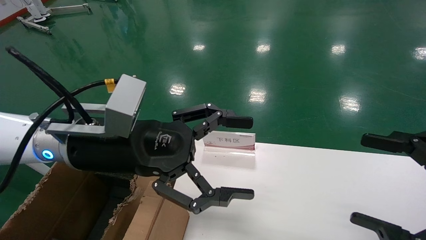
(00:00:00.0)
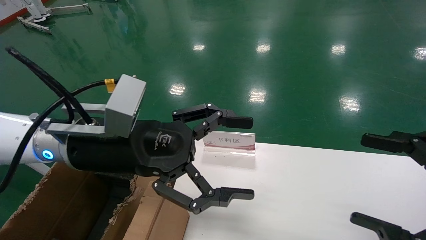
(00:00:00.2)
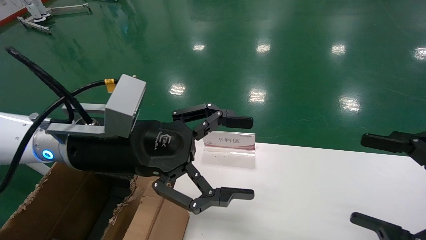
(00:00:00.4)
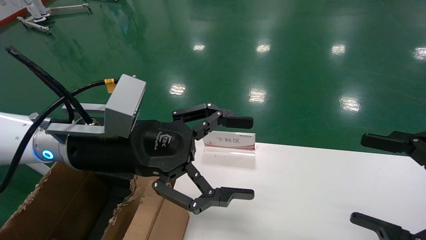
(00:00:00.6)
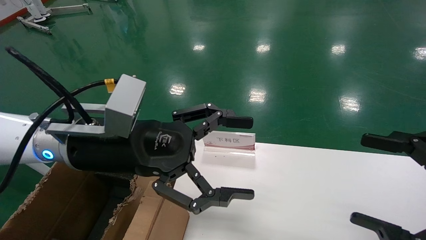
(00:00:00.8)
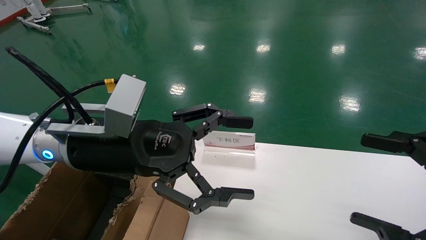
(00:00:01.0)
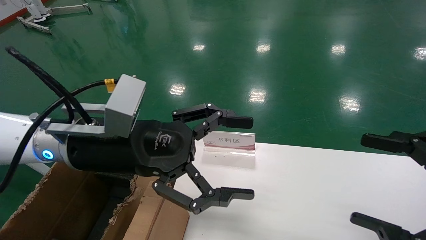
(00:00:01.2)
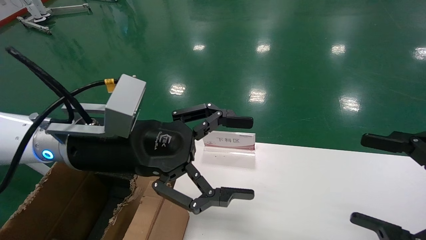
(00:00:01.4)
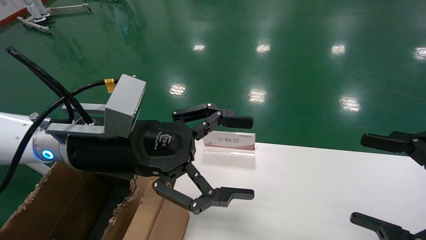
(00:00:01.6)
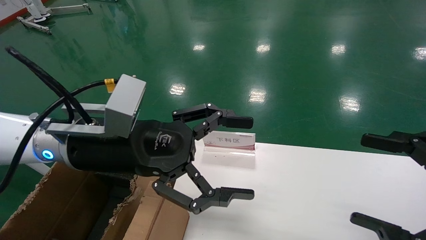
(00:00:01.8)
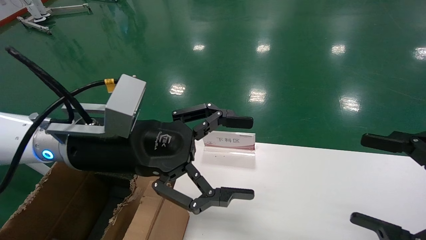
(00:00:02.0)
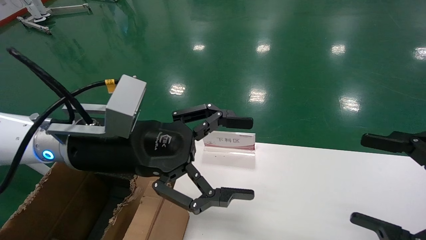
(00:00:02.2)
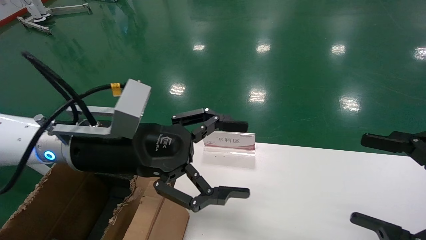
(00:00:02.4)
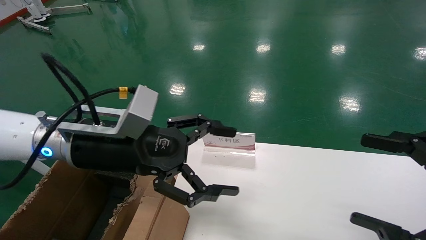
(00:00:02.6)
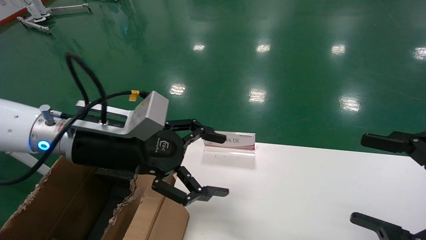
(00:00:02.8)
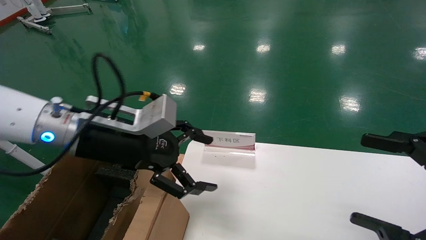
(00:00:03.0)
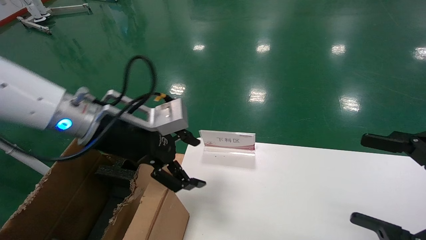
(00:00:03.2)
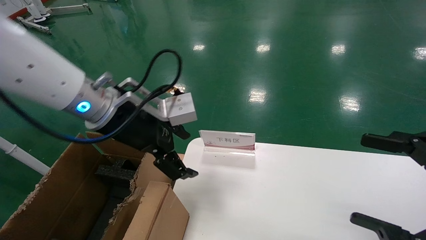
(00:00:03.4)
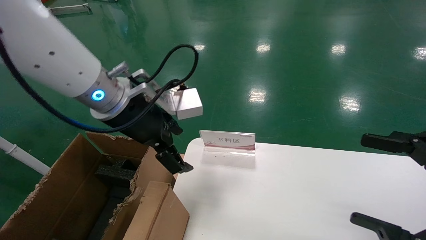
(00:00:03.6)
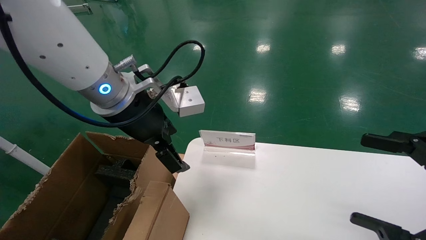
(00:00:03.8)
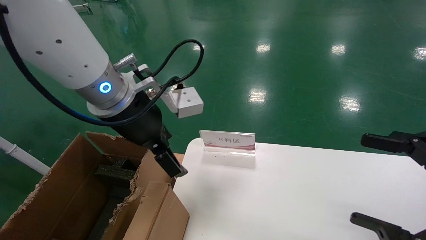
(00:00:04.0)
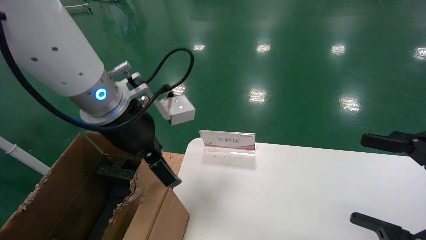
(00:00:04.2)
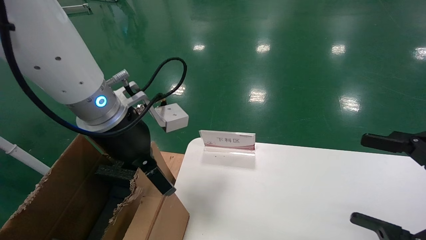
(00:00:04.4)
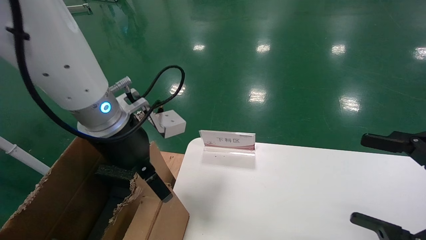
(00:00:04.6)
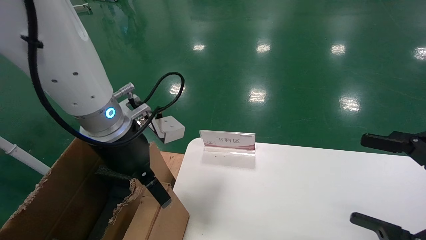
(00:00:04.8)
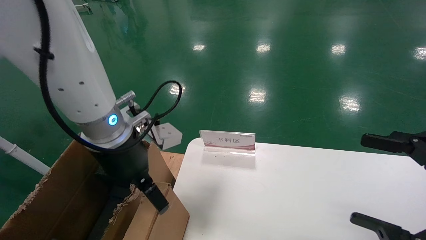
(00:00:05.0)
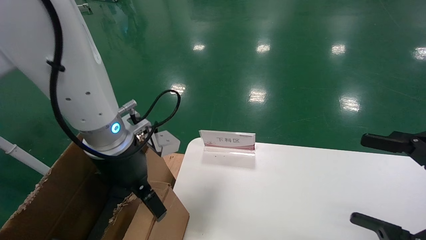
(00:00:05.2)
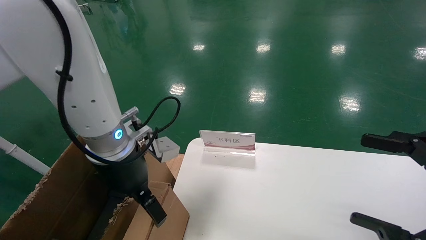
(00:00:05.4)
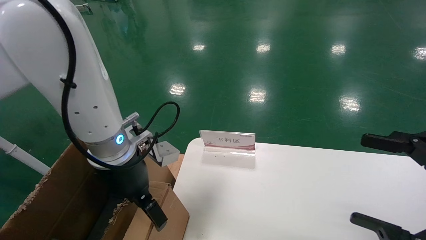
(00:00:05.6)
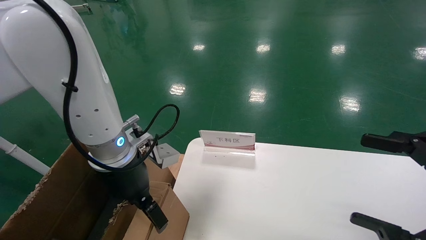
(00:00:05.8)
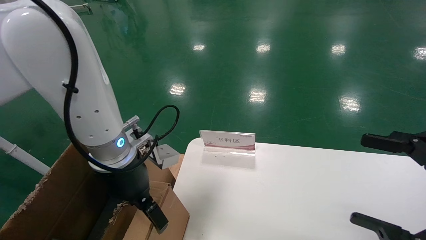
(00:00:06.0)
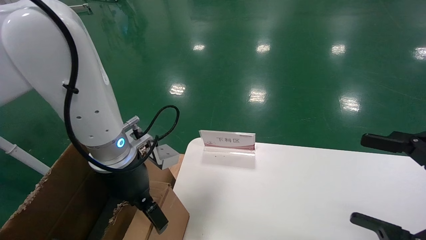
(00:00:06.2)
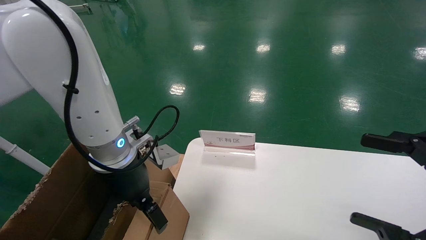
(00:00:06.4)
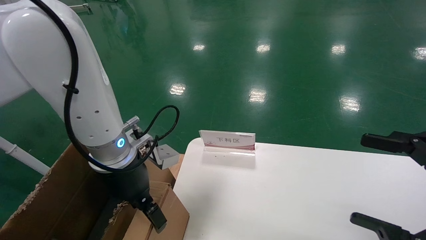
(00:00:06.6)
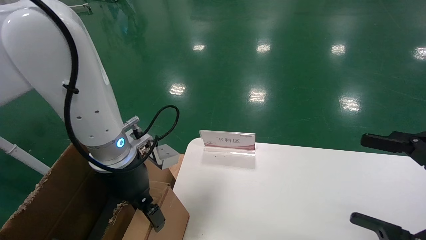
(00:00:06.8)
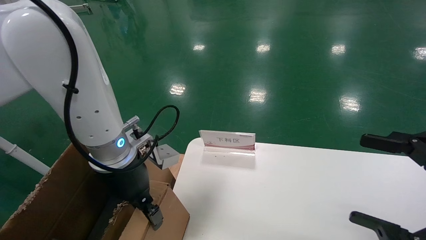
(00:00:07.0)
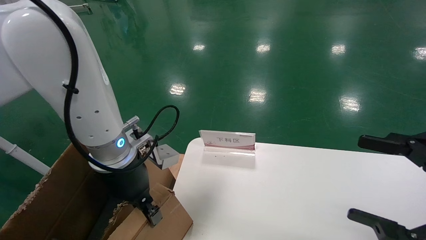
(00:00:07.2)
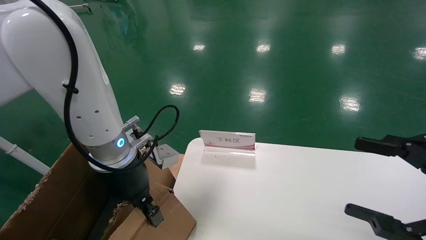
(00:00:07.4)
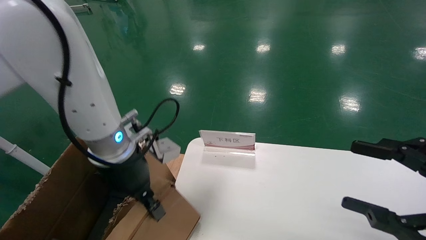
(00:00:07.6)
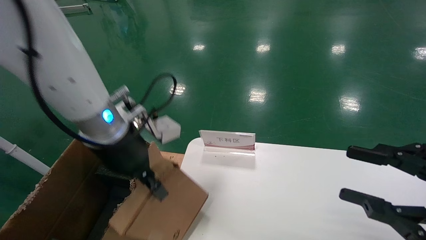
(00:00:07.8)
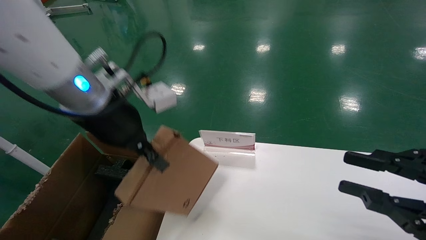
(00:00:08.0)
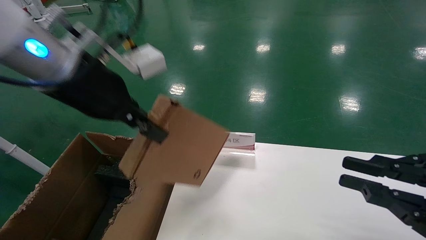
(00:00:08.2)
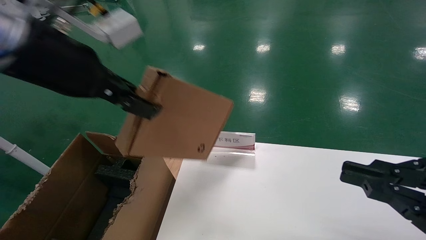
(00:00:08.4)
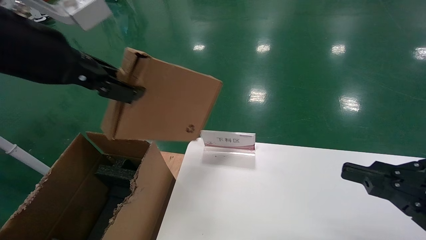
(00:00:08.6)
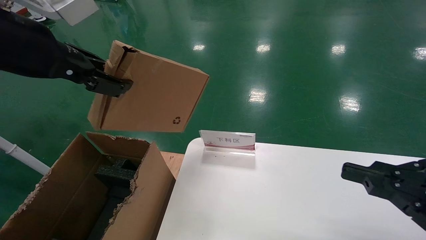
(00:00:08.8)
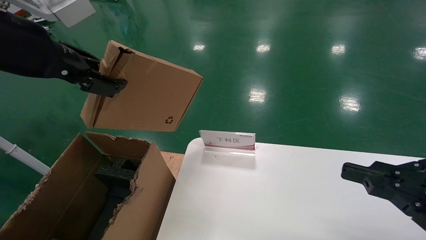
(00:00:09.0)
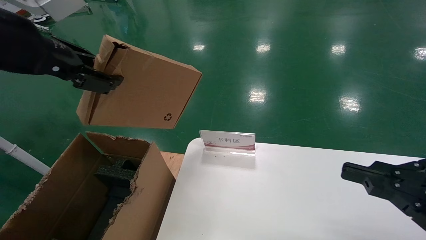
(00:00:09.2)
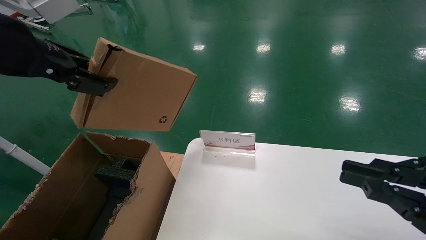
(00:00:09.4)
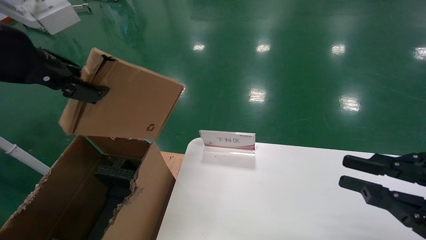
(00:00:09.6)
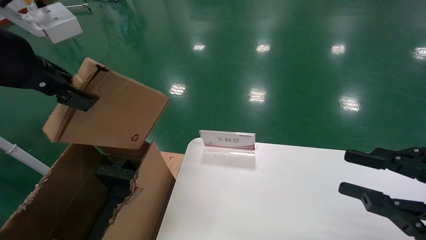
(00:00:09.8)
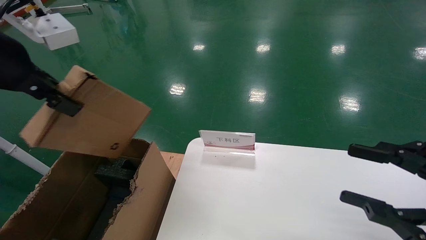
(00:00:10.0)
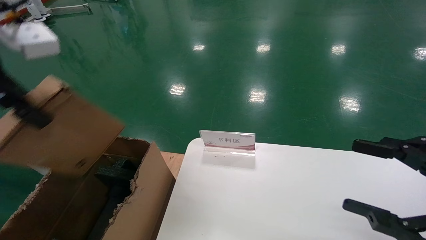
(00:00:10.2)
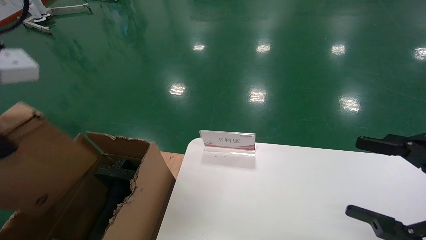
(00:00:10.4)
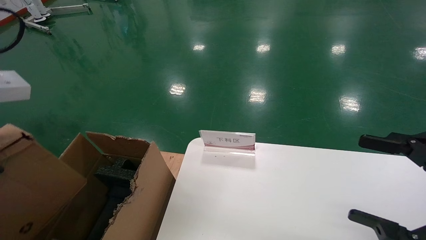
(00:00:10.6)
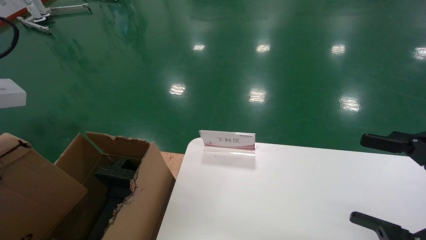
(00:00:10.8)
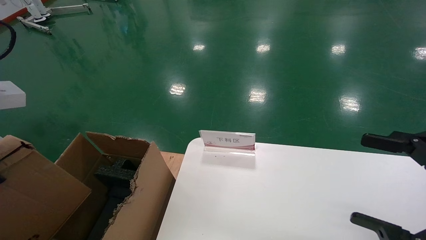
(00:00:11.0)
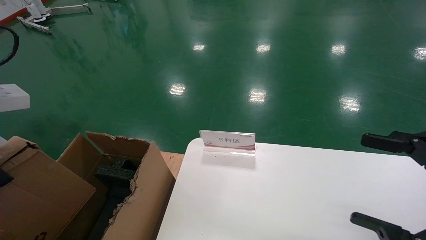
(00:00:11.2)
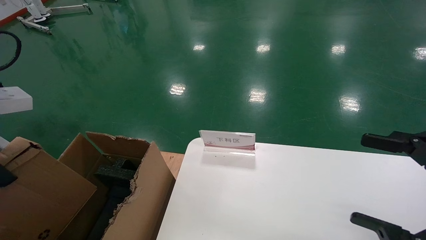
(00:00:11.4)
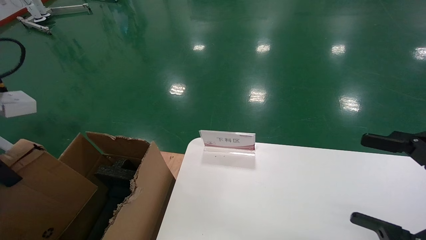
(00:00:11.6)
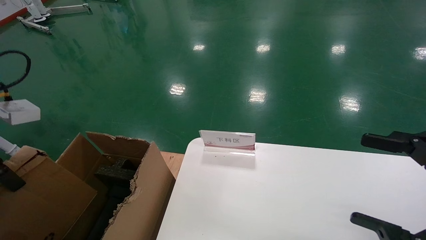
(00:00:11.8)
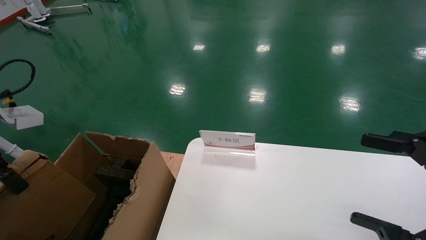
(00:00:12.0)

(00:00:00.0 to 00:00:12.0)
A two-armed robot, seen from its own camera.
Task of the whole recording: pick up the small cardboard box and load it into the large cardboard box.
Step, 00:00:00.0 - 00:00:07.0: Grasp the paper box.
00:00:00.0 - 00:00:01.6: Neither gripper changes place.
00:00:03.0 - 00:00:04.4: The left gripper shifts by about 5 cm.
00:00:04.4 - 00:00:06.0: The left gripper is displaced downward by approximately 5 cm.
00:00:06.0 - 00:00:07.6: The left gripper closes.
00:00:07.6 - 00:00:09.0: The left gripper travels upward, to the left and backward by some 20 cm. The right gripper closes up.
00:00:09.0 - 00:00:10.4: The left gripper changes place by roughly 5 cm, while the right gripper opens up.
00:00:10.4 - 00:00:12.0: The left gripper travels to the left and downward by roughly 15 cm. Meanwhile the right gripper opens its fingers.

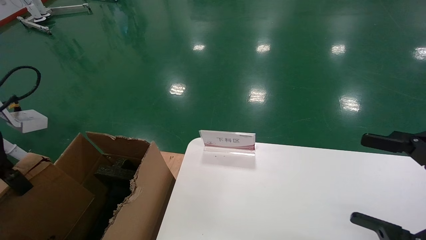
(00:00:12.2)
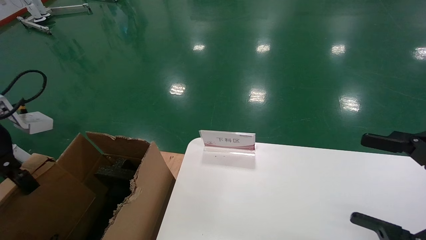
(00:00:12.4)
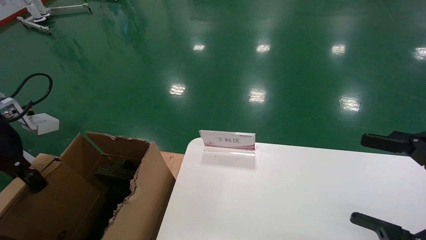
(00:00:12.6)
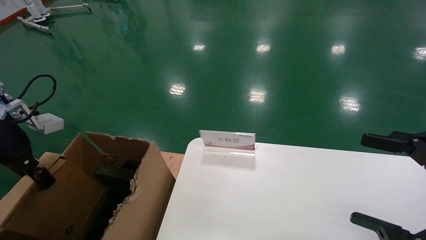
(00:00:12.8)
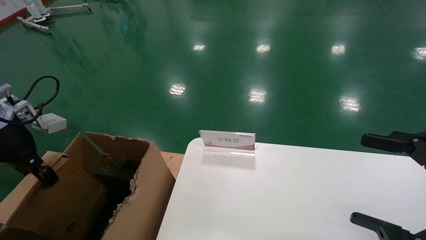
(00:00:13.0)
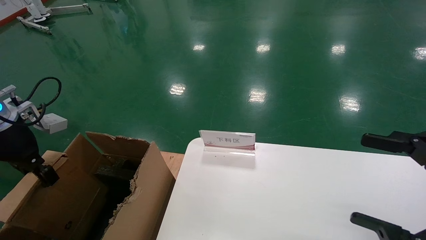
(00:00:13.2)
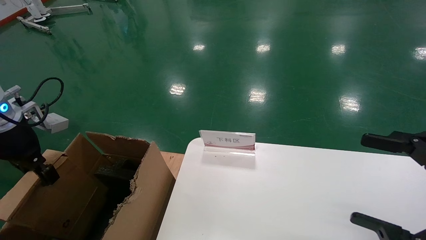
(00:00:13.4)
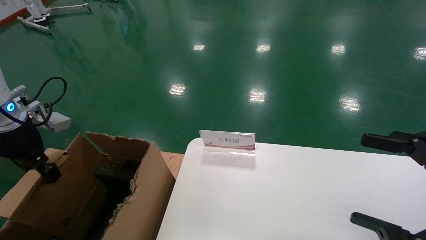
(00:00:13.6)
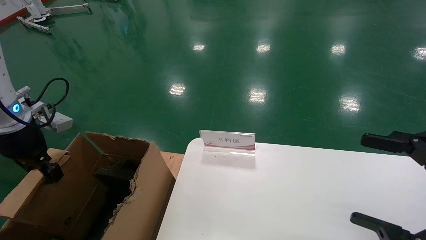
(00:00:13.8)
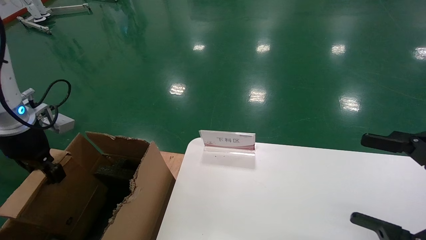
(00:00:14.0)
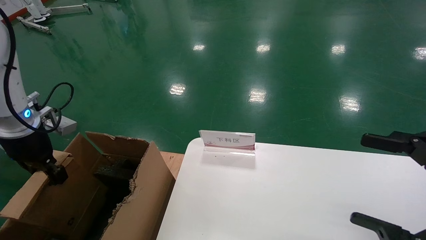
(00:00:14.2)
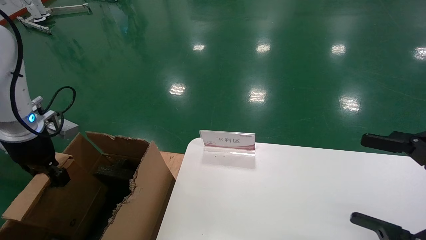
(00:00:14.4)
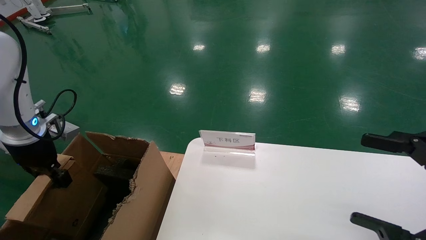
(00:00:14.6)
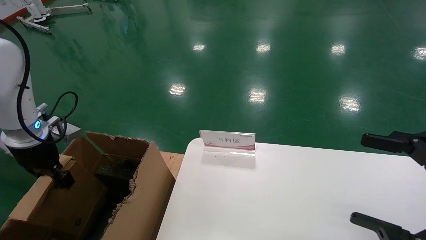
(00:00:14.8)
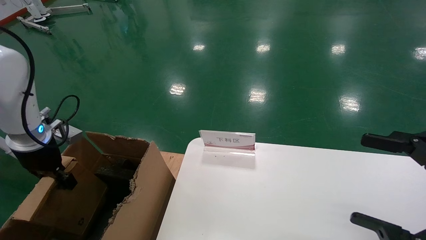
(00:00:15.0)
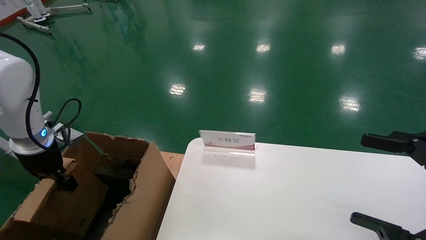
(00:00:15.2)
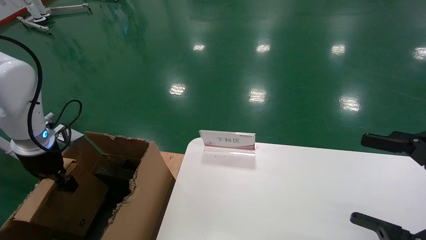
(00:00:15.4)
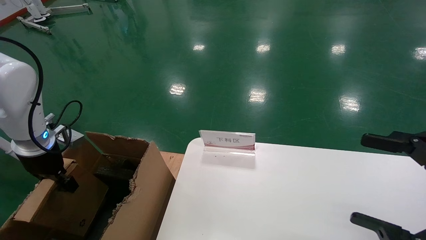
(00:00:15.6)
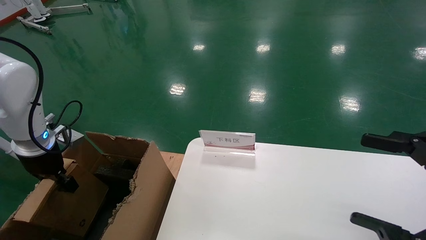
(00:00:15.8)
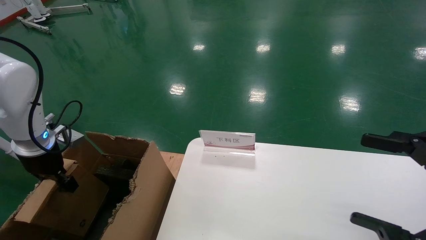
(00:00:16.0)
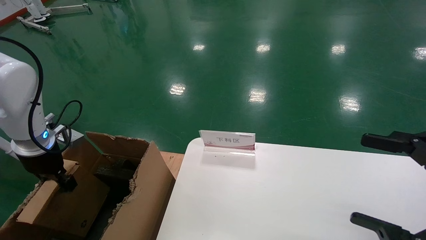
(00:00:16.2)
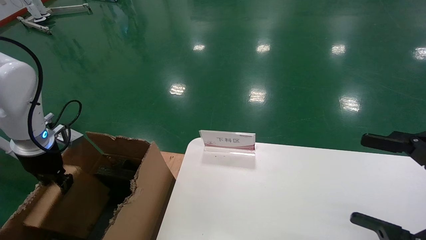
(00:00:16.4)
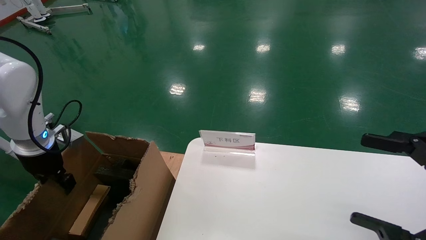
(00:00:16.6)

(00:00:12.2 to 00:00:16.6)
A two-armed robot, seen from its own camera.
Task of the whole recording: pick up the small cardboard box and load it into the large cardboard box.
Step, 00:00:12.2 - 00:00:16.4: Place the paper box in the another big box.
00:00:12.2 - 00:00:13.6: The left gripper goes roughly 5 cm forward.
00:00:13.6 - 00:00:15.2: The left gripper is displaced downward by approximately 5 cm.
00:00:15.2 - 00:00:16.6: Both grippers stay put.
